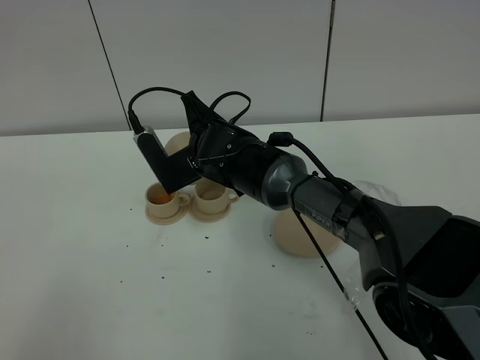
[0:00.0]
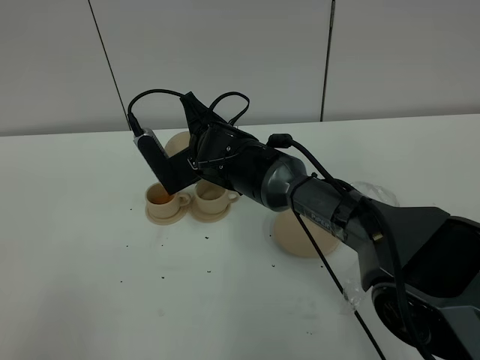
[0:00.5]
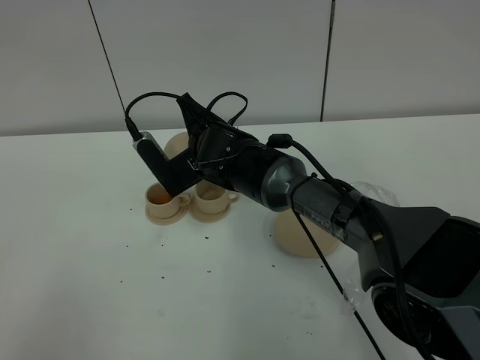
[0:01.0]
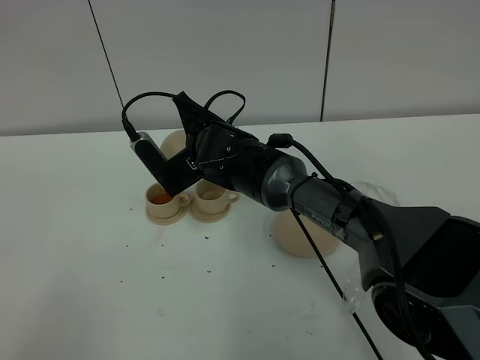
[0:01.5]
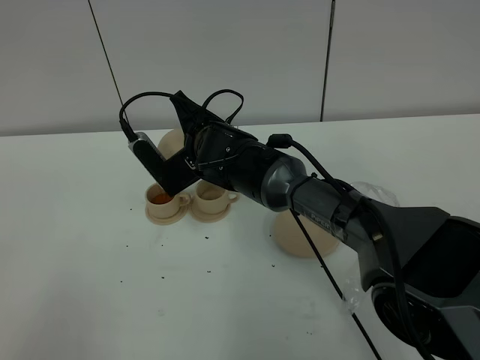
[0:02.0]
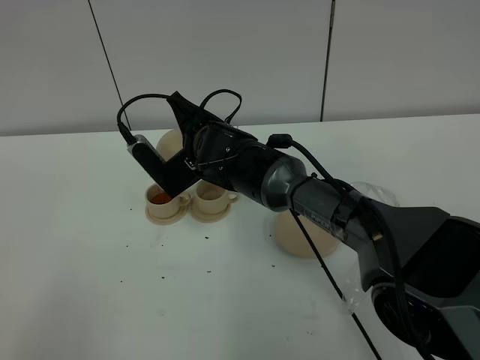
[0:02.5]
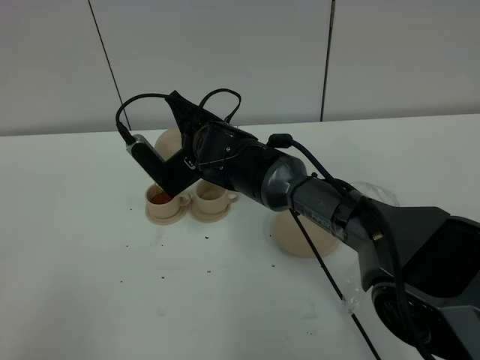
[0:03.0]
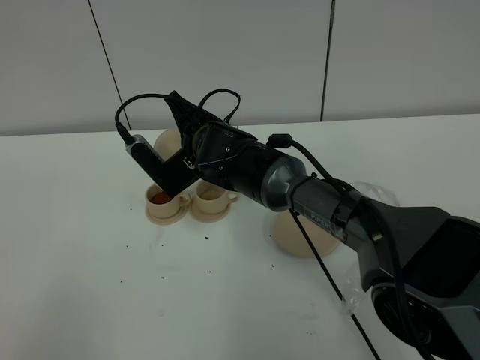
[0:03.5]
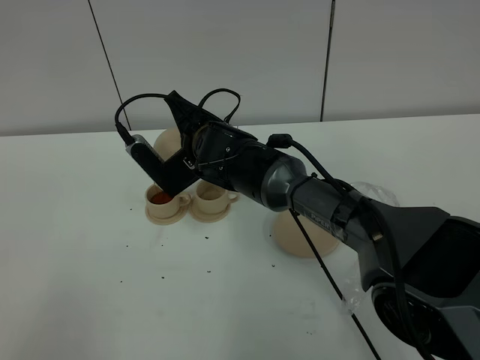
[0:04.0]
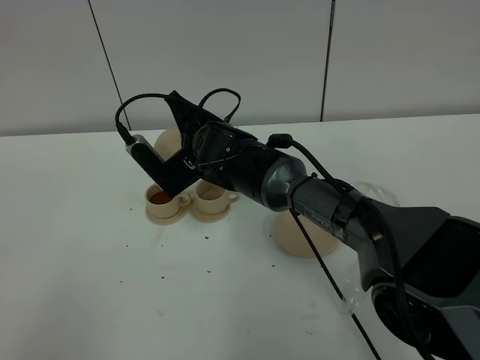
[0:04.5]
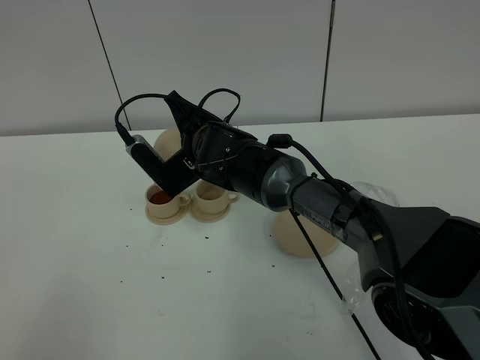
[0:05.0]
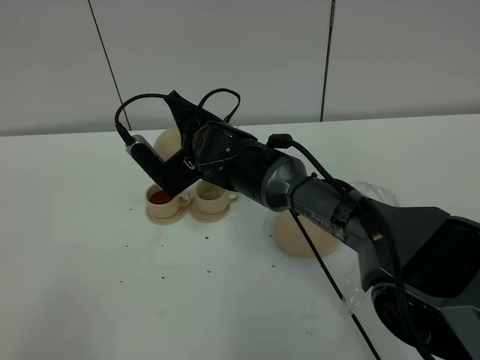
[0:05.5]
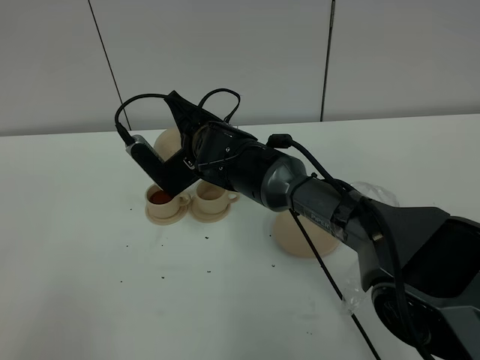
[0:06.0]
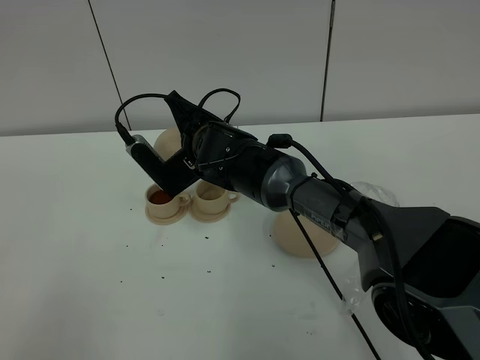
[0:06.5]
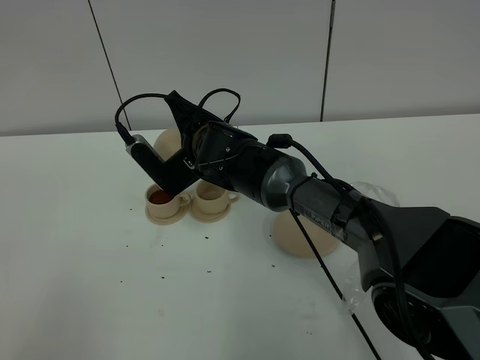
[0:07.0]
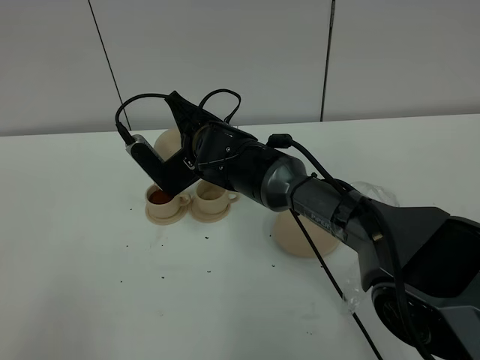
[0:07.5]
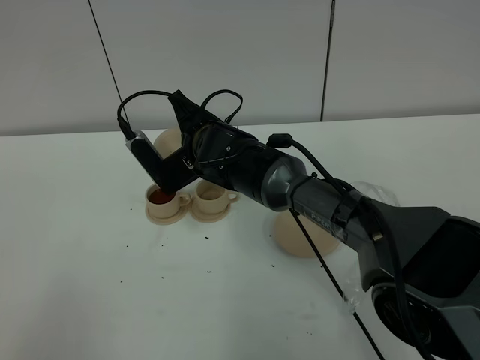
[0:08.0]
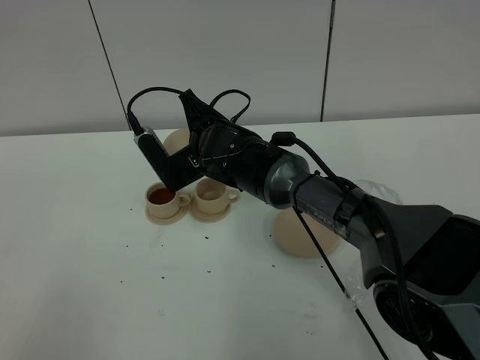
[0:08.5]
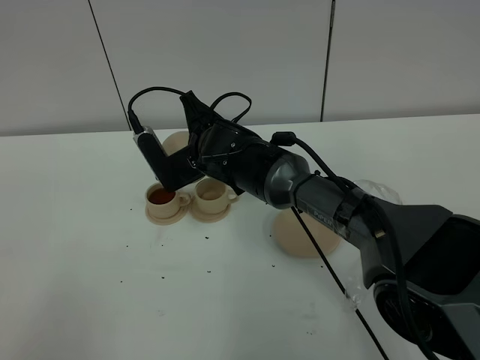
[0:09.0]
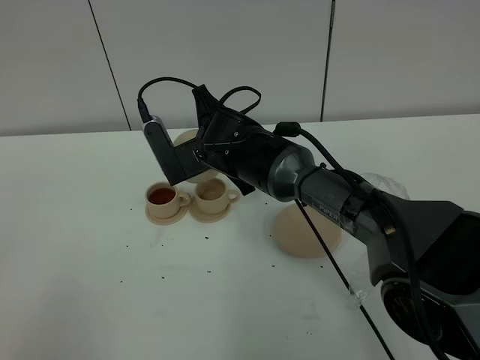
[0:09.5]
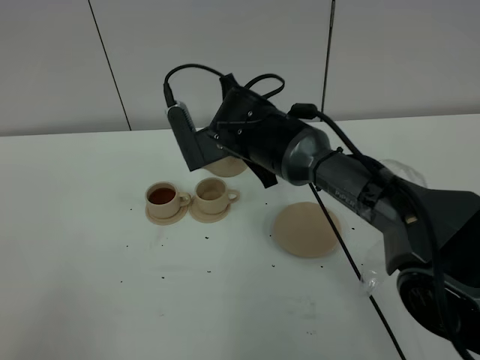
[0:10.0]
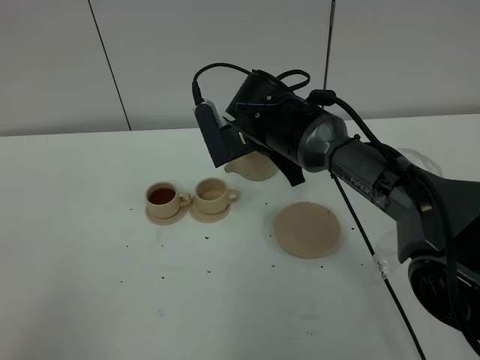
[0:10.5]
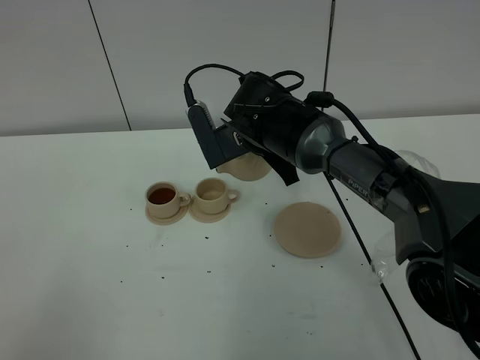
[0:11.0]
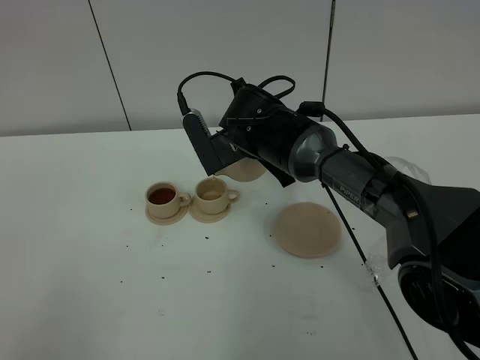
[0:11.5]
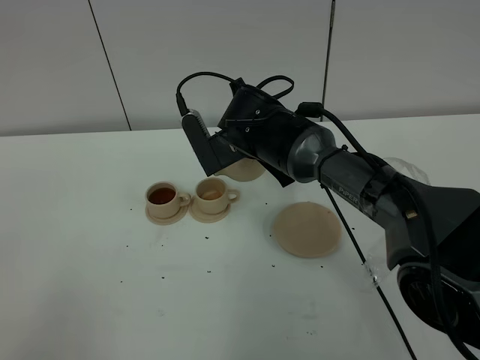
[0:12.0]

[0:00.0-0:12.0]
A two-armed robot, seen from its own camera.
Task of the whole recording: grasp the brown teapot and pour the tea into the two brown teacups one by one, put the brown teapot back in its original place.
0:00.0 to 0:02.0: The grippers stay close to where they were, moving slightly.
0:02.0 to 0:06.0: Both grippers stay put.
0:06.0 to 0:08.0: There are only small adjustments of the grippers.
0:08.0 to 0:10.0: The right gripper moves about 5 cm.
0:10.0 to 0:12.0: The grippers move only a little.

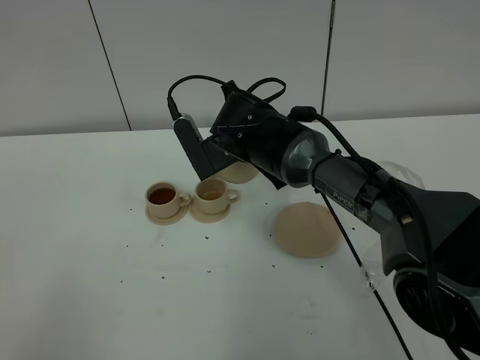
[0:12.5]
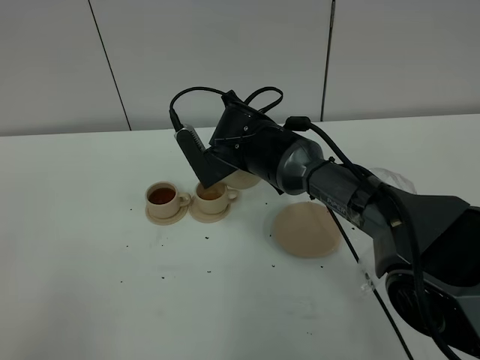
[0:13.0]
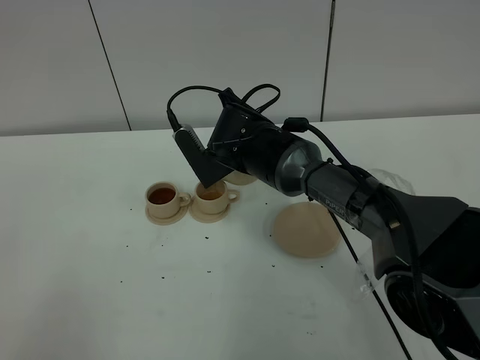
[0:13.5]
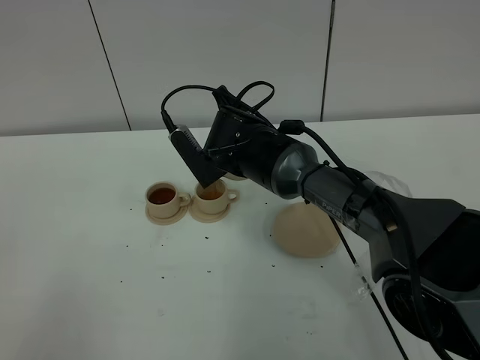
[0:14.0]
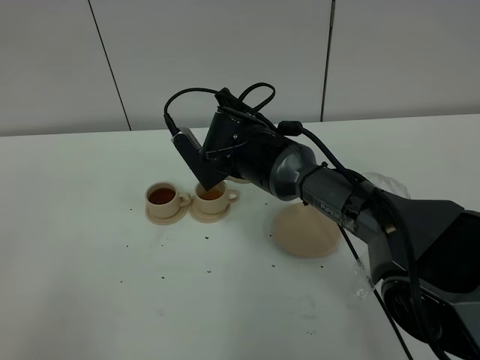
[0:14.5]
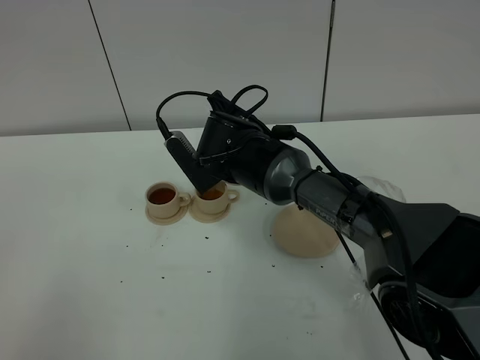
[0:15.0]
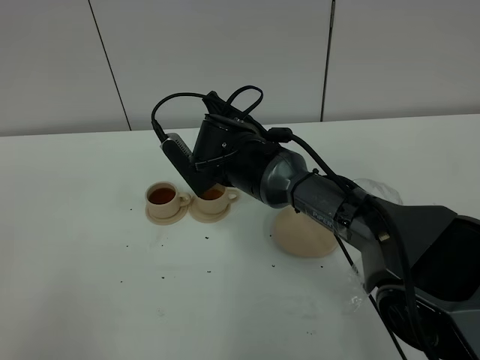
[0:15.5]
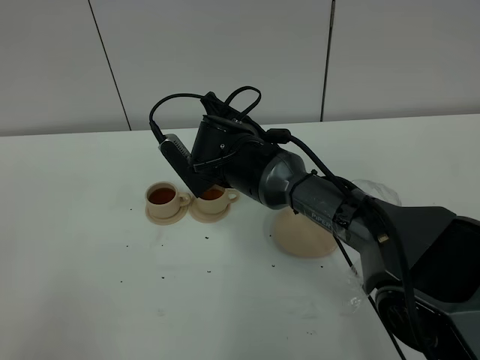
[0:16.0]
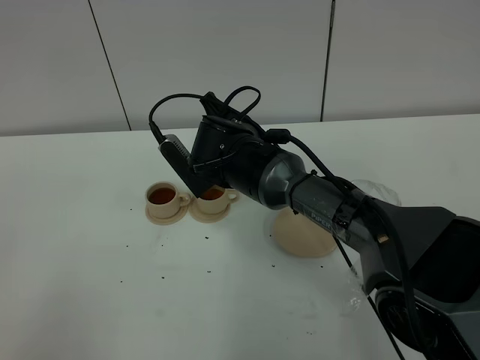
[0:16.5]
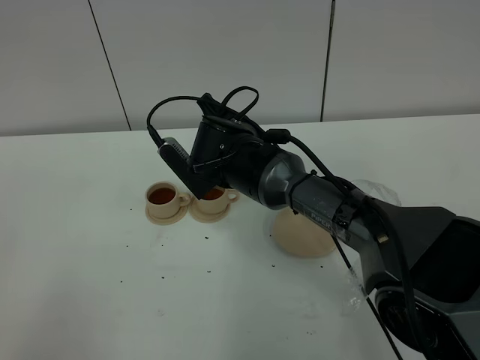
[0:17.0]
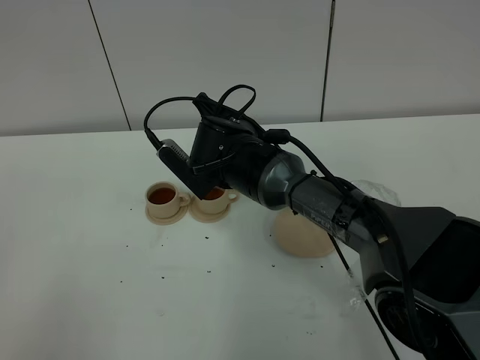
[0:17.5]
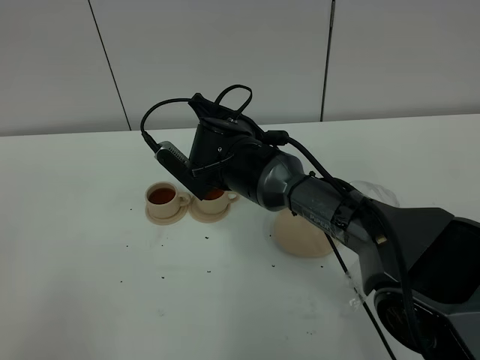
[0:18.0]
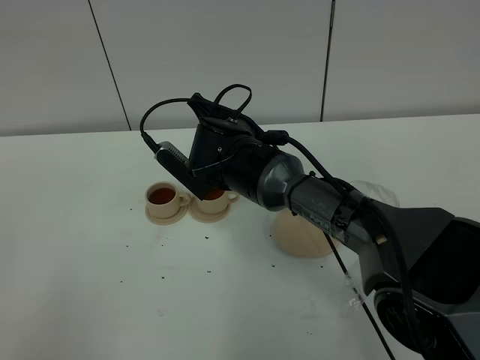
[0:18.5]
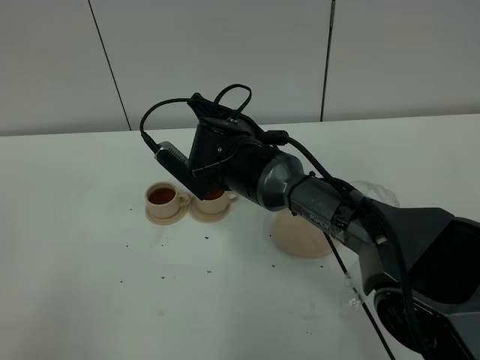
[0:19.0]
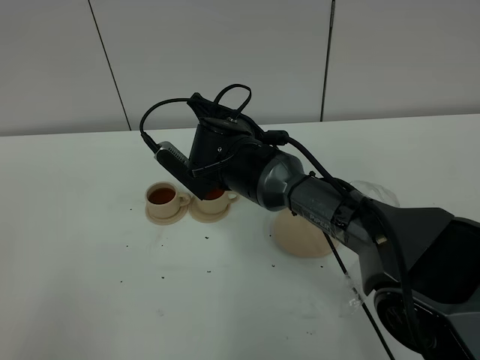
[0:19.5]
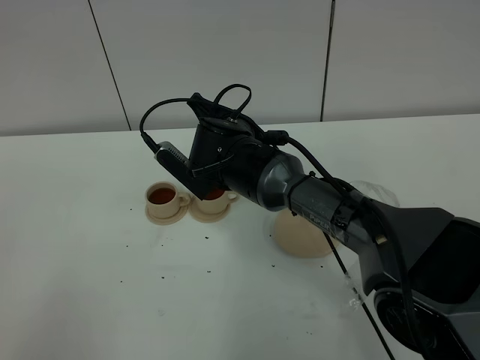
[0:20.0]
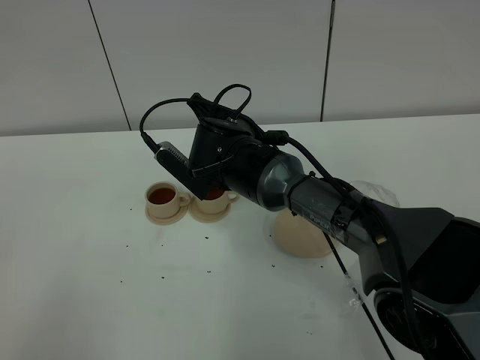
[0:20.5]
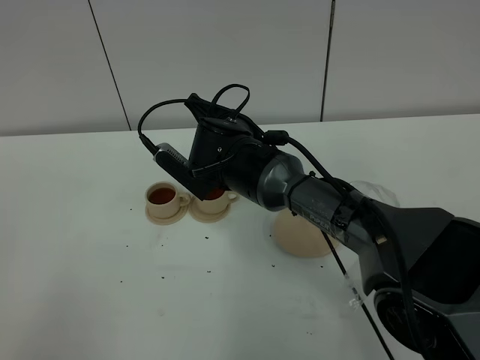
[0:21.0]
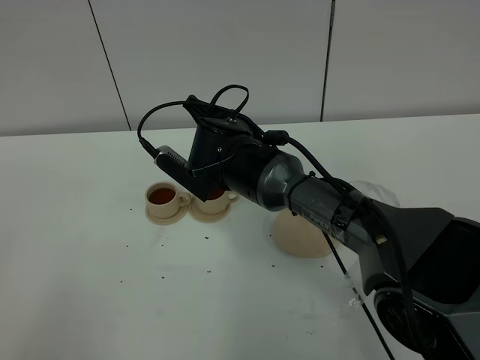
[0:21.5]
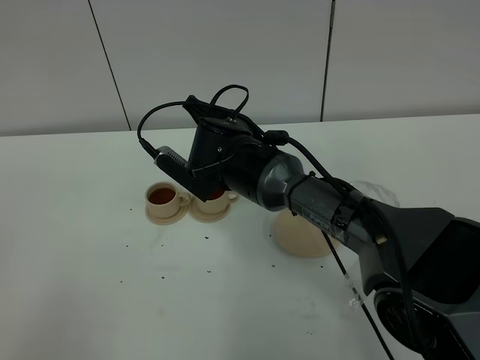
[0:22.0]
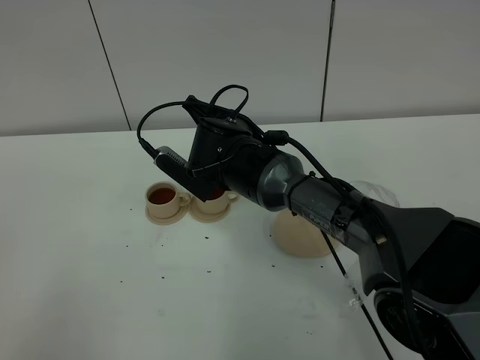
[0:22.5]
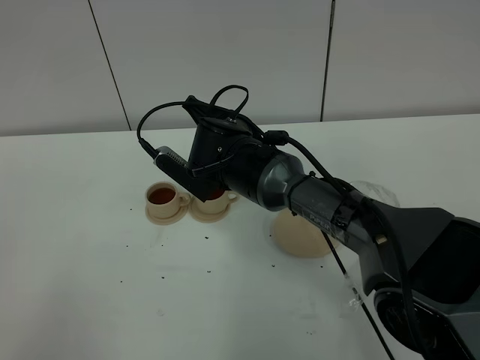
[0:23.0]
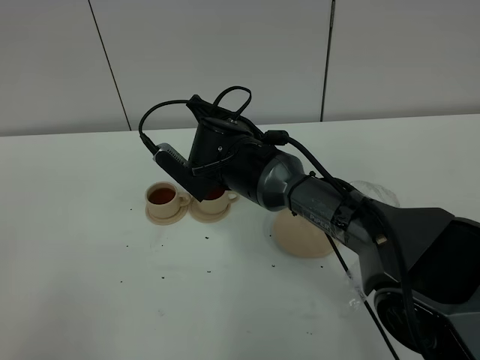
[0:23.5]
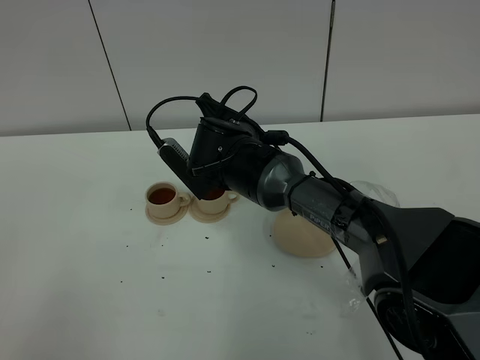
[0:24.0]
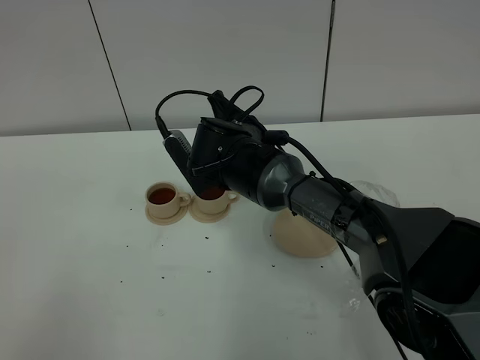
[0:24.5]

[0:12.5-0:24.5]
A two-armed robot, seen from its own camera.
Task of the whole recording: grasp the brown teapot and pour the tea into the two brown teacups one by one, put the brown teapot back in its original place.
0:12.5 to 0:16.5: The grippers make only small movements.
0:16.5 to 0:18.5: The grippers stay close to where they were, moving slightly.
0:18.5 to 0:22.5: The two grippers keep their place.

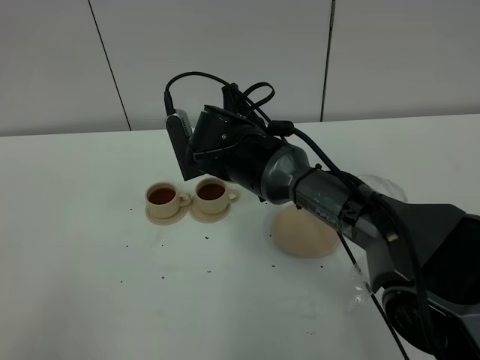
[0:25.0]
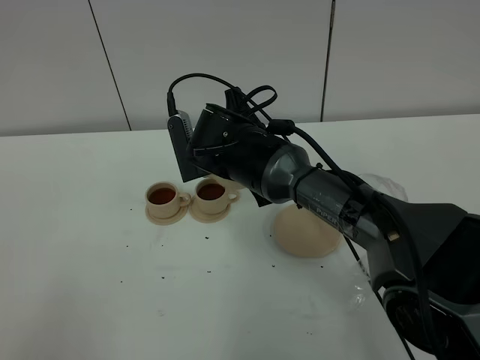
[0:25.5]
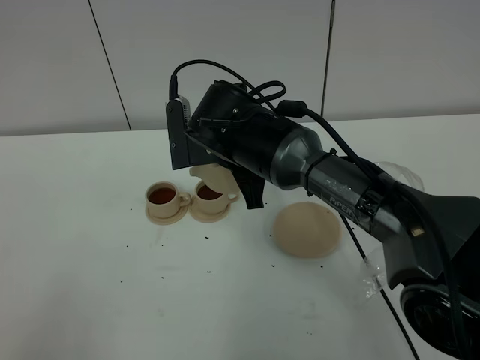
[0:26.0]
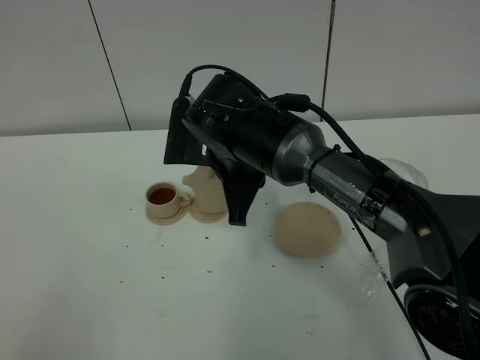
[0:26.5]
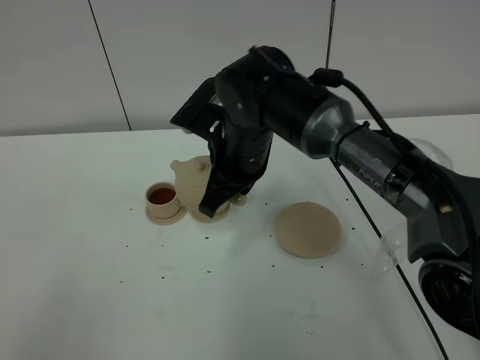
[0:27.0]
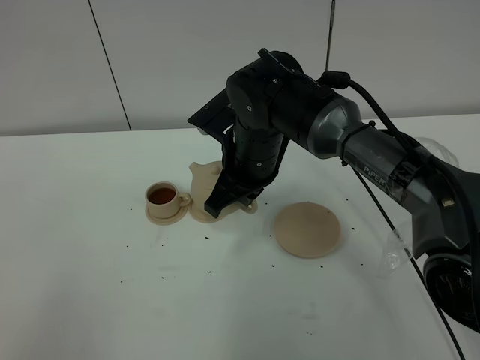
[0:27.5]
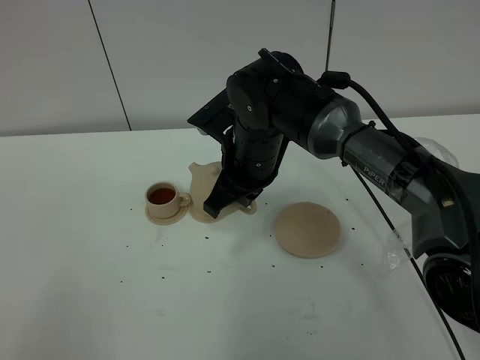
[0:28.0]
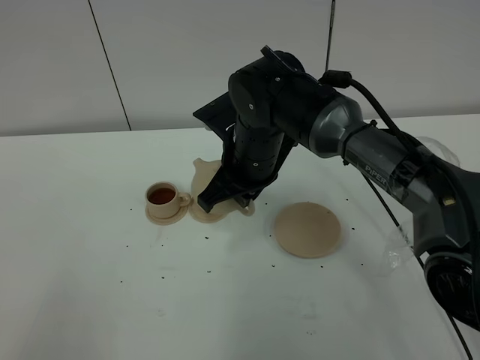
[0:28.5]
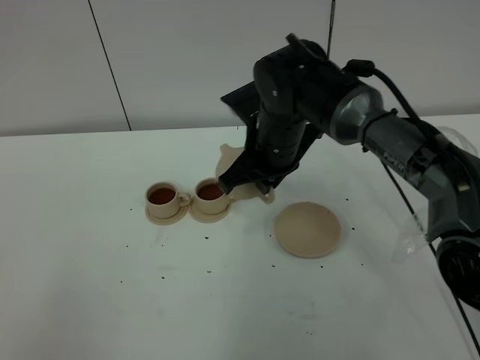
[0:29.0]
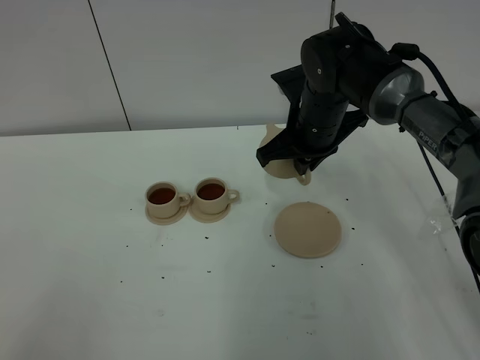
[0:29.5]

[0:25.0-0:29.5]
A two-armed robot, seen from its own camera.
Task of the whole recording: grasp the brown teapot and pour the tea into the two brown teacups one by one, put the brown teapot back in its original place.
0:27.0 to 0:29.5: The right gripper heads to the right and forward, covering about 10 cm.
